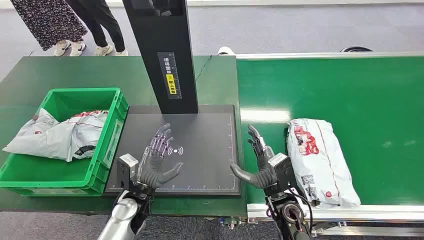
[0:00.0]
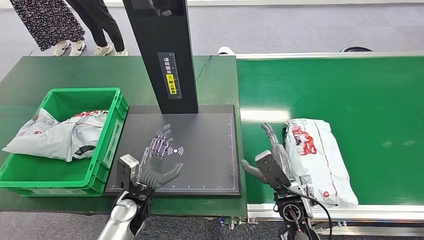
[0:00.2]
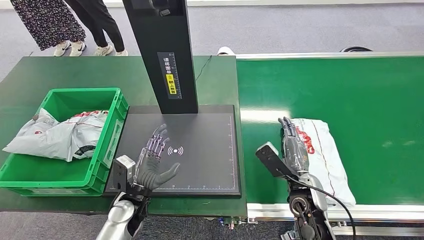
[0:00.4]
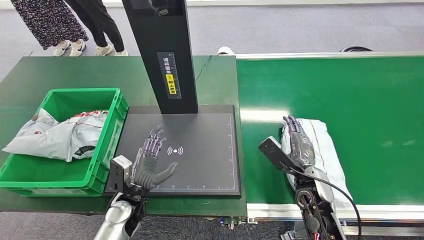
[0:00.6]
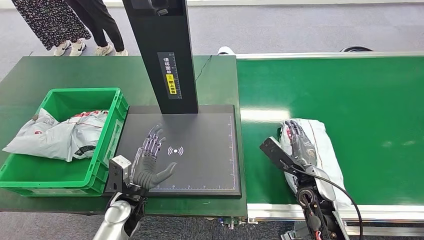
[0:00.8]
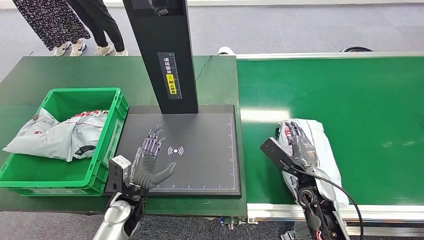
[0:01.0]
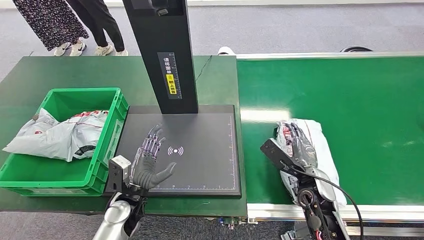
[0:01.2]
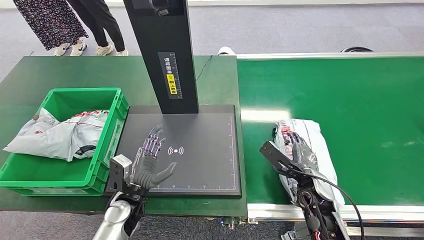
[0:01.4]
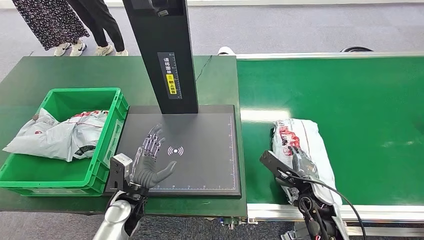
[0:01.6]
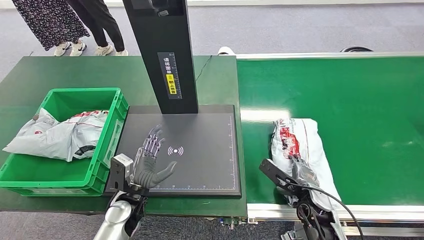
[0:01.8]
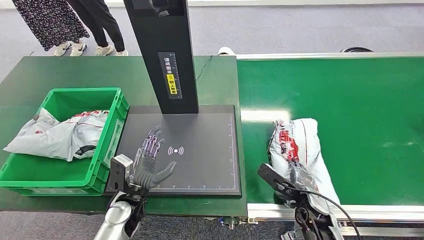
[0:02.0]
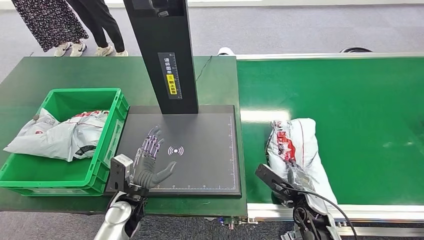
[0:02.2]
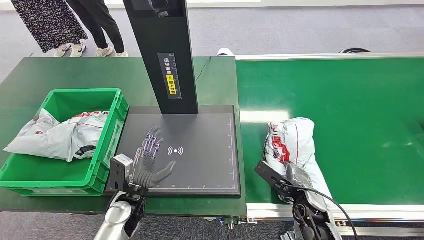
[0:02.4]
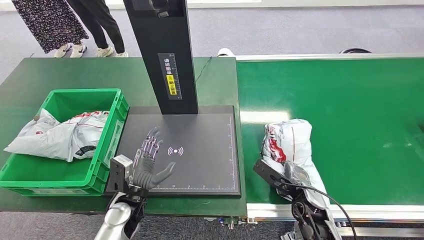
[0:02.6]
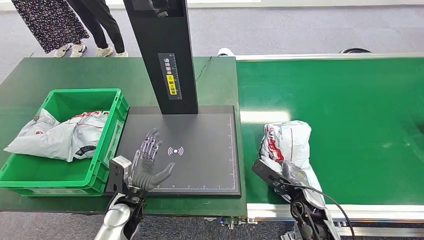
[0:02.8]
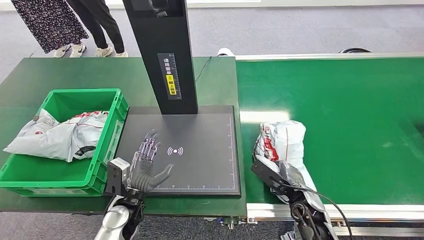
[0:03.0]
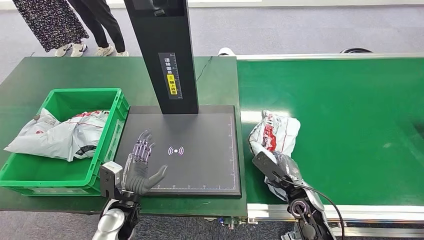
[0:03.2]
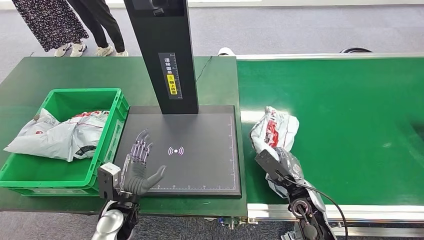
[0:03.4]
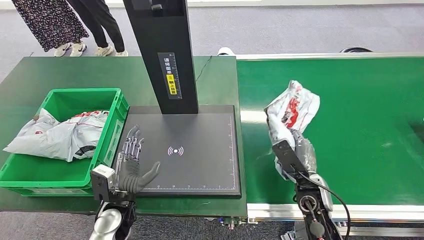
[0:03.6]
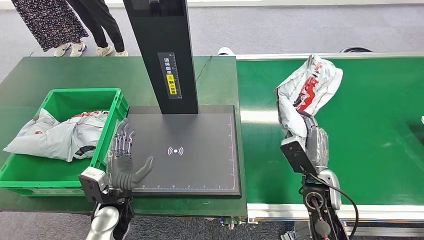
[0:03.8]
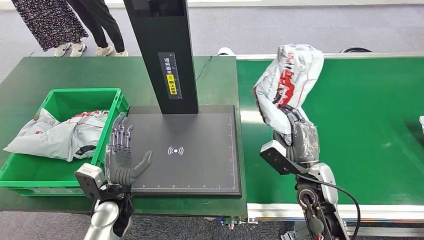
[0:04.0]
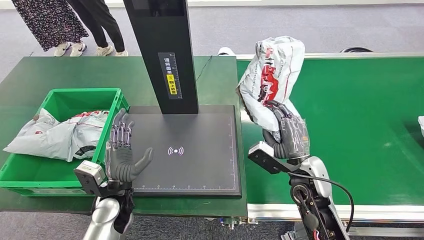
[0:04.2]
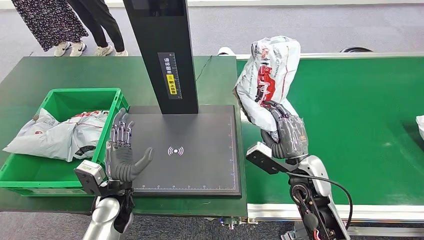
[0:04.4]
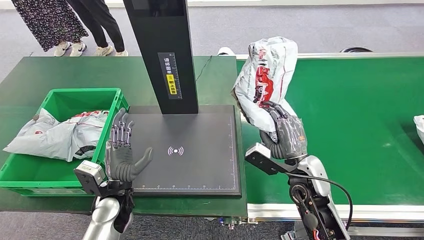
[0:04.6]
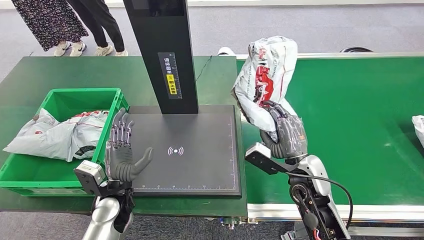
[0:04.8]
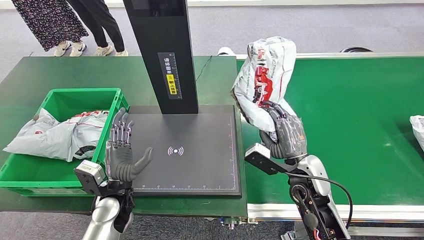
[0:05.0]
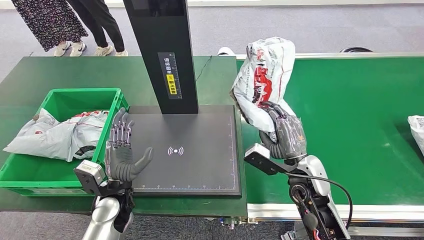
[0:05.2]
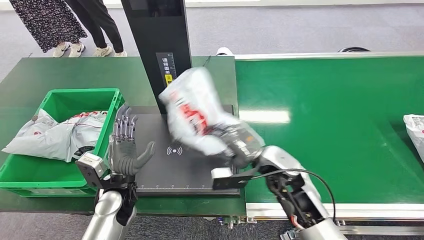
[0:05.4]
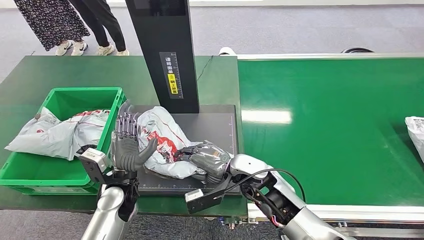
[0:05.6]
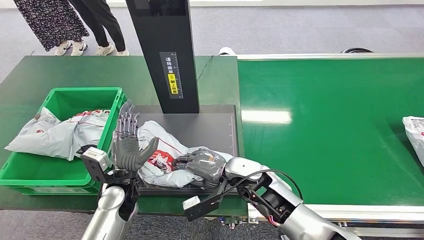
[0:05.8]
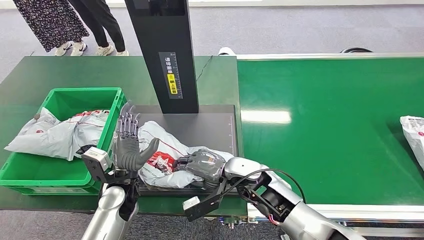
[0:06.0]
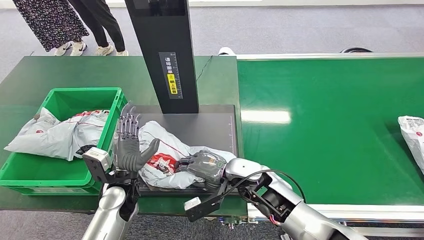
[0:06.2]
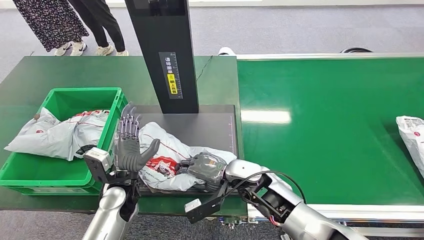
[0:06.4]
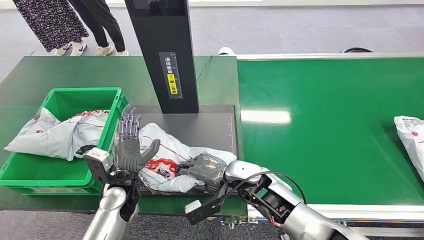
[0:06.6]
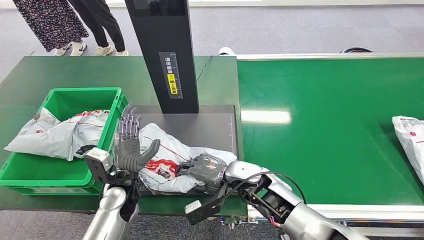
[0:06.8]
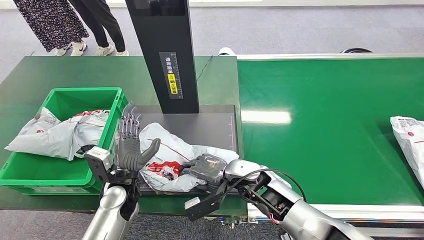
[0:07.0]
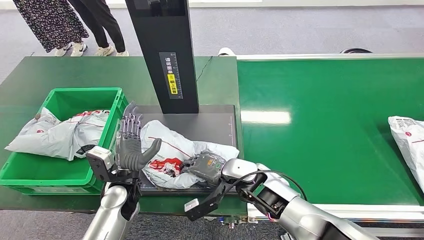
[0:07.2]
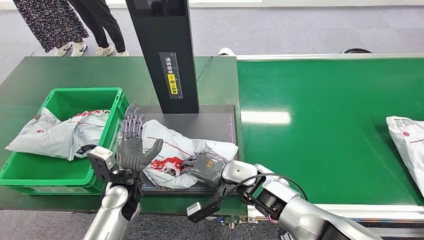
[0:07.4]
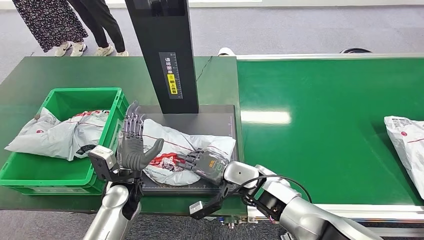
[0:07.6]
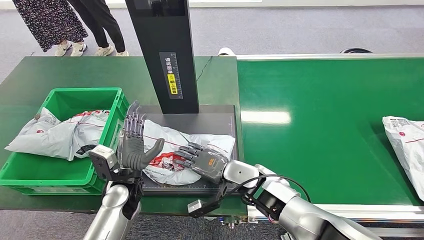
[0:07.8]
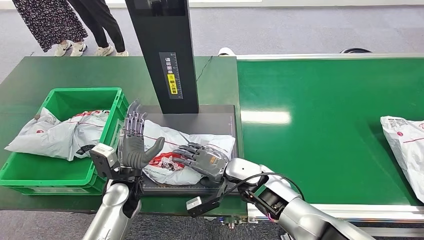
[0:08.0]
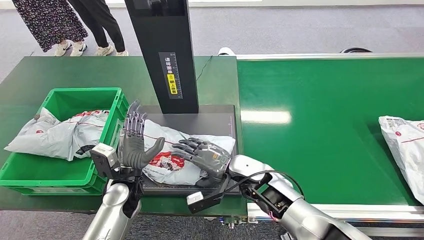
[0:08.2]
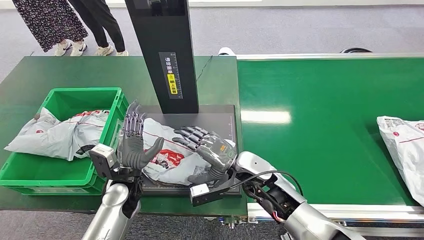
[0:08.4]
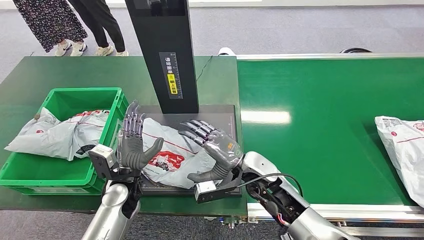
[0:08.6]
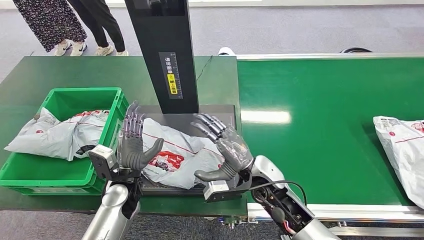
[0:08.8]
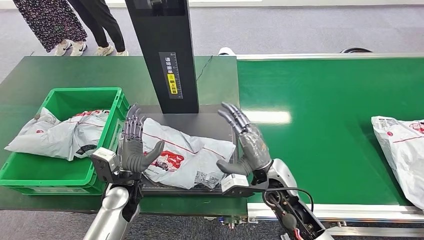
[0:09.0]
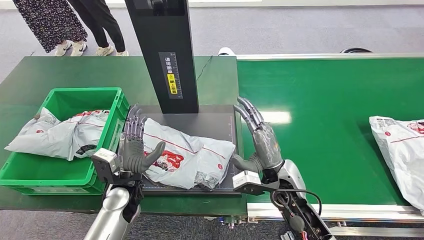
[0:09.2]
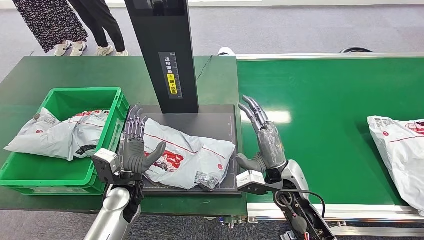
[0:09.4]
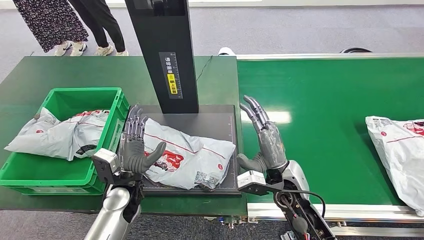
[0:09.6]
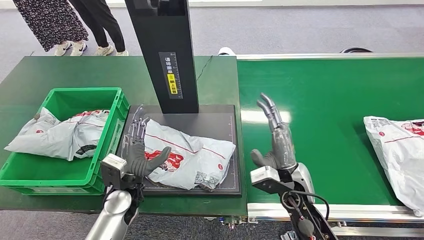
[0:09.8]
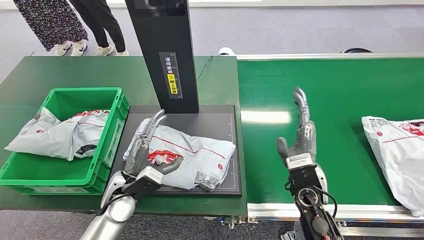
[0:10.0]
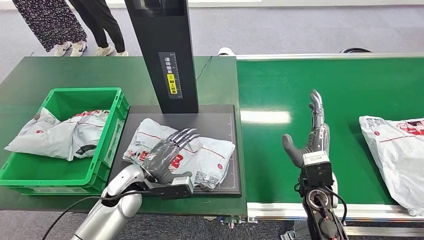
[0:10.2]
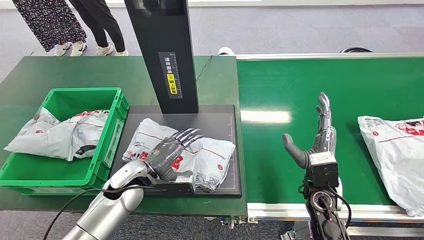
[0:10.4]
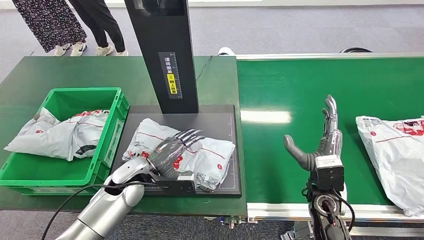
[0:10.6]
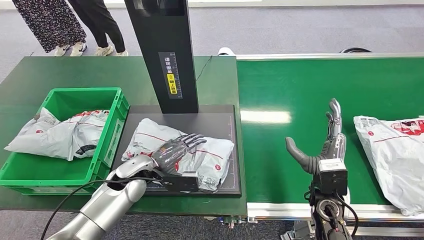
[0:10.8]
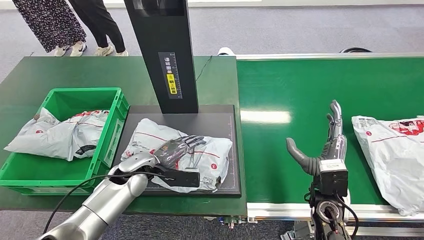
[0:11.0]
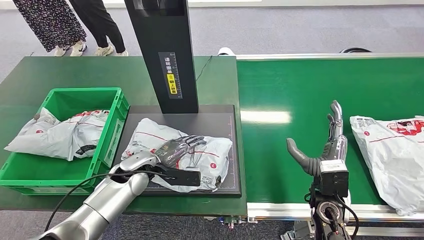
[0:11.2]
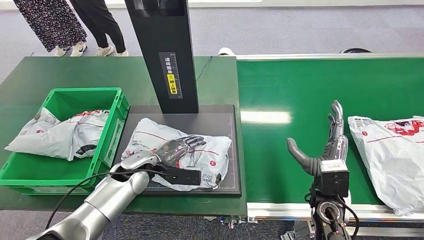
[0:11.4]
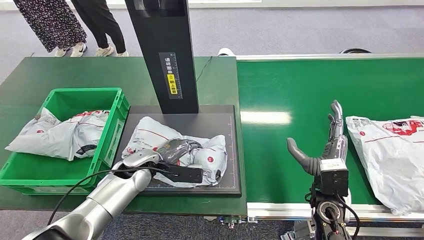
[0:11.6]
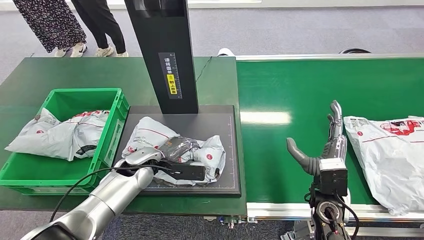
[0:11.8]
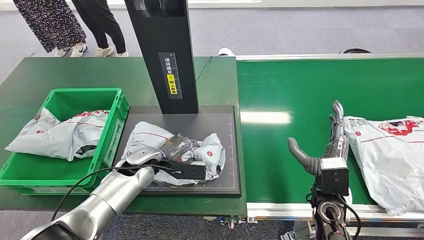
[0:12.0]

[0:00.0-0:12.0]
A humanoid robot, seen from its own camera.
Step, 0:00.0 to 0:04.2: Pick up the package from the conveyor belt.
Step, 0:04.4 to 0:09.4: Place the package onto the inbound machine.
0:01.6 to 0:03.0: The hands move only a little.
0:03.0 to 0:04.4: The right hand travels upward by roughly 10 cm.
0:07.6 to 0:09.0: The right hand changes place by roughly 5 cm.

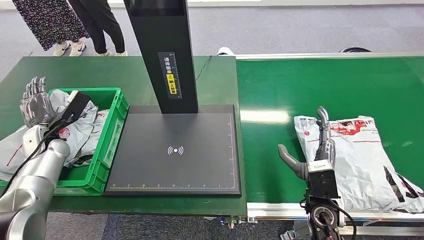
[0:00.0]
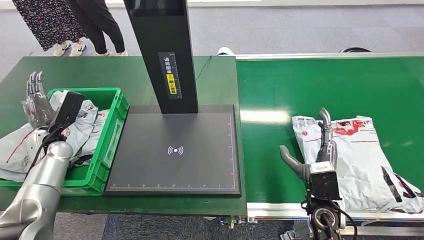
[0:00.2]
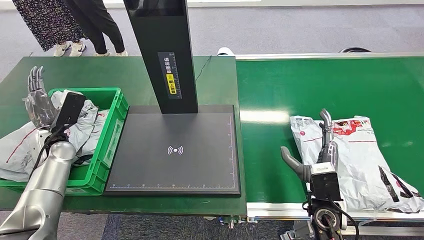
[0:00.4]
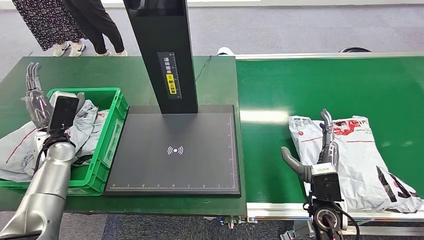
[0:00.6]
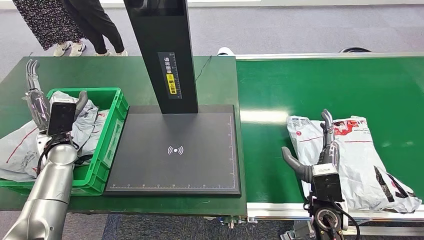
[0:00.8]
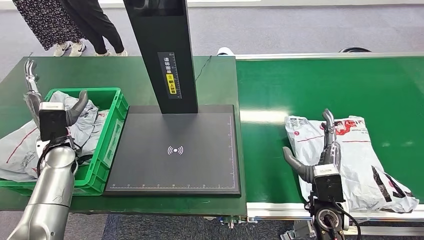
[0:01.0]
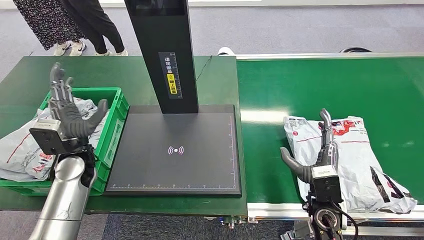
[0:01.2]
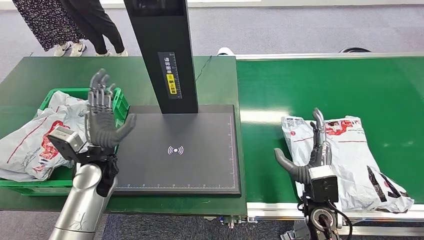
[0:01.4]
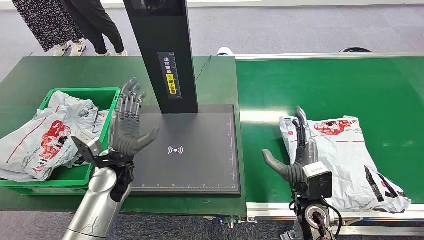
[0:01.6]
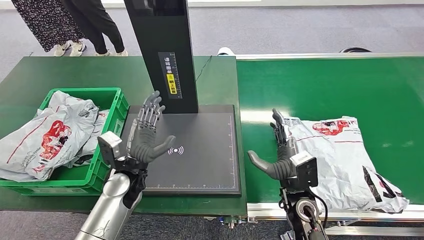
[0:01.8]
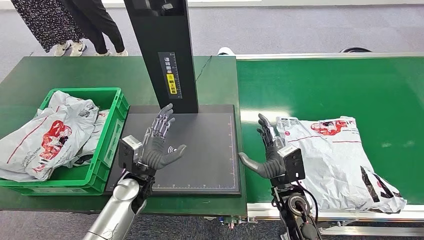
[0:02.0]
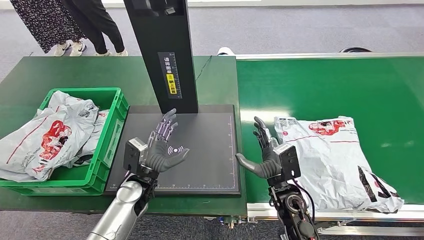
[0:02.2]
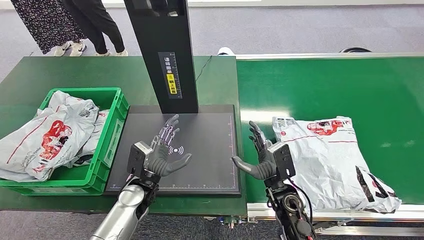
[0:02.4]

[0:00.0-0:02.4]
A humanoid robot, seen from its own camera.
Step, 0:00.0 to 0:02.4: Place the package into the parcel locker.
0:00.0 to 0:01.2: The left hand heads to the right, covering roughly 15 cm.

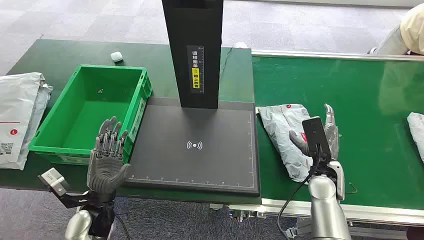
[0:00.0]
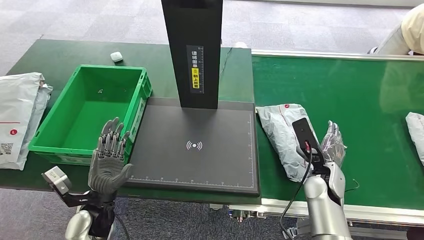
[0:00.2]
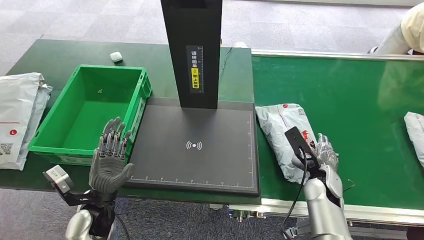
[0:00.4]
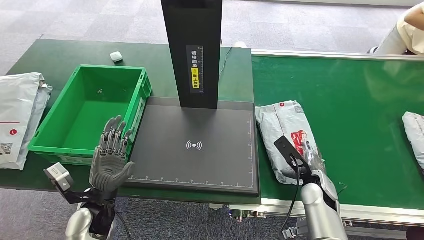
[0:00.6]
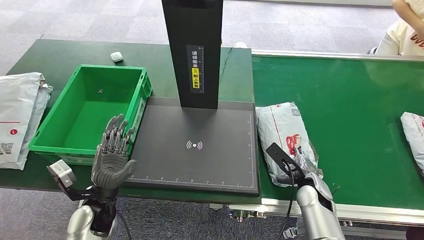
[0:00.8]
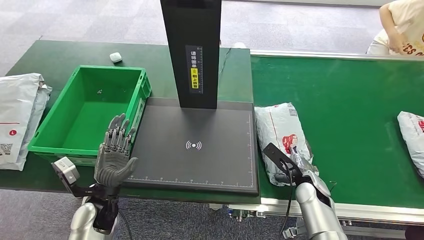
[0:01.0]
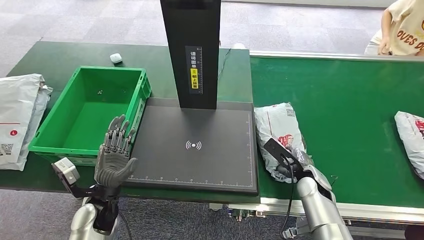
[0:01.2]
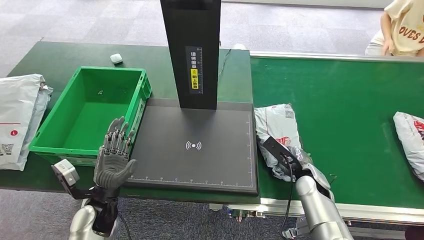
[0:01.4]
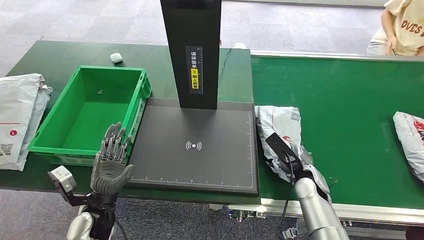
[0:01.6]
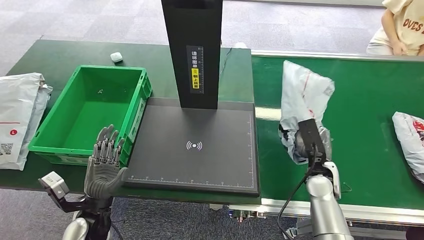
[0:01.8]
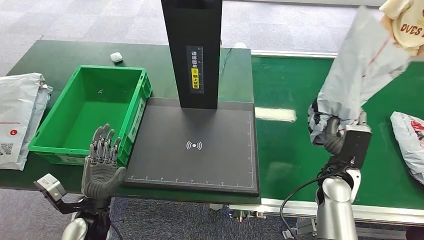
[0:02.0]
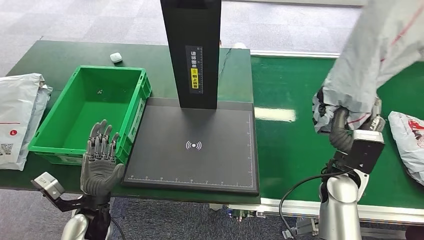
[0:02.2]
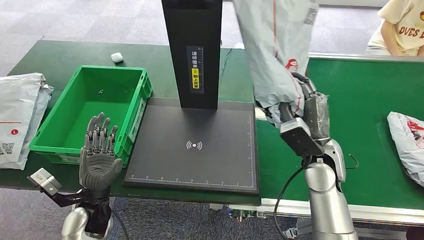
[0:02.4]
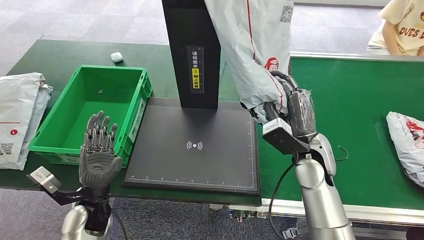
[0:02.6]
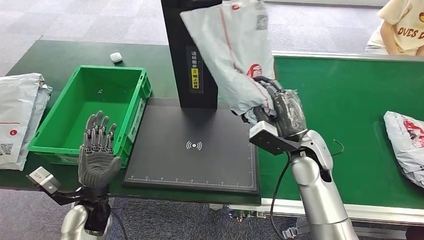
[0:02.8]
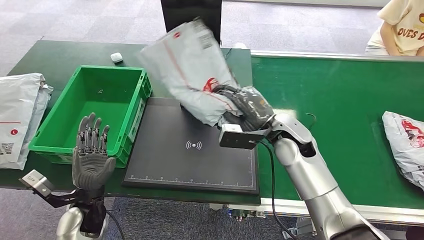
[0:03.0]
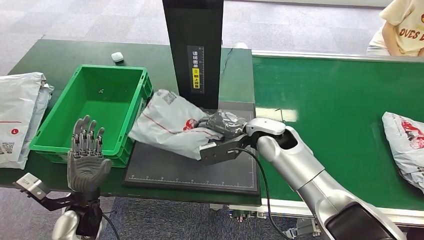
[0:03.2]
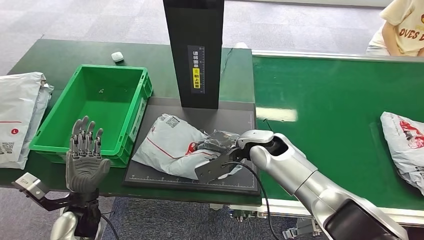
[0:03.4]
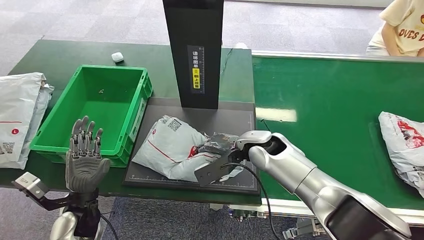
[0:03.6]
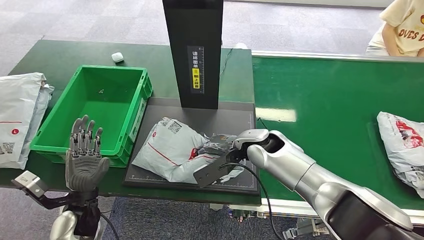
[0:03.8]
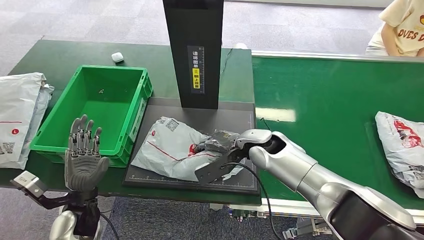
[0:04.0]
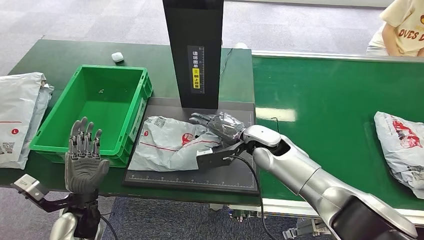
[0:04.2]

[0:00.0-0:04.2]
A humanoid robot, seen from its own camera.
Step, 0:00.0 to 0:02.0: Pick up the package from the conveyor belt.
